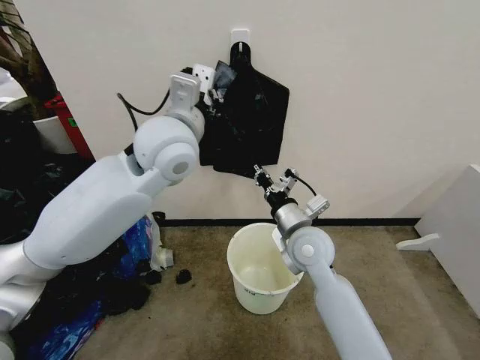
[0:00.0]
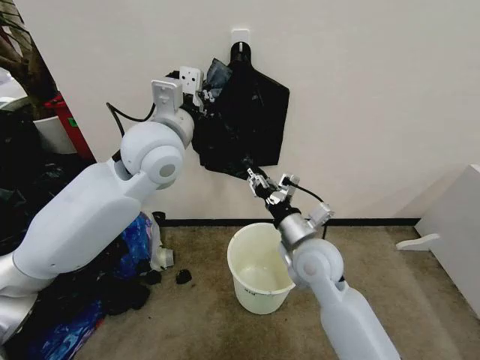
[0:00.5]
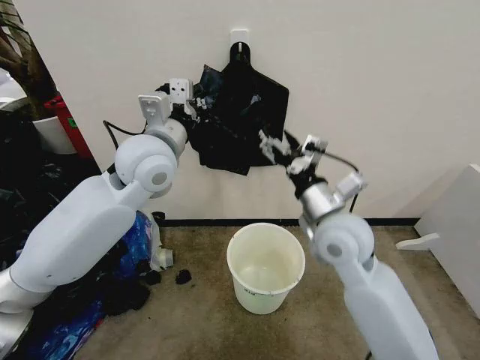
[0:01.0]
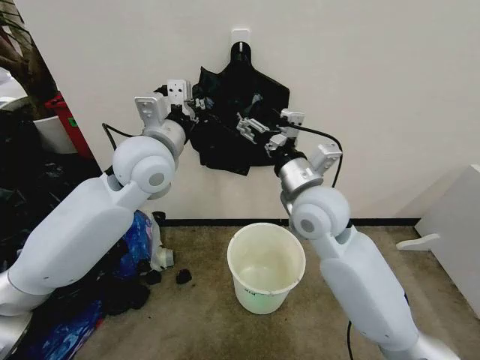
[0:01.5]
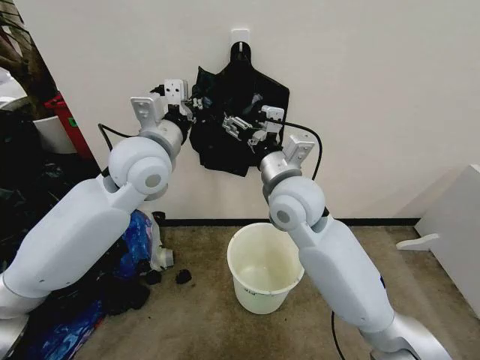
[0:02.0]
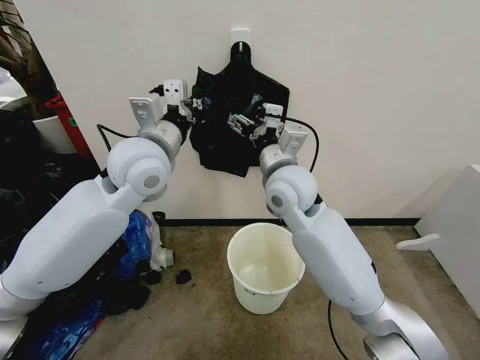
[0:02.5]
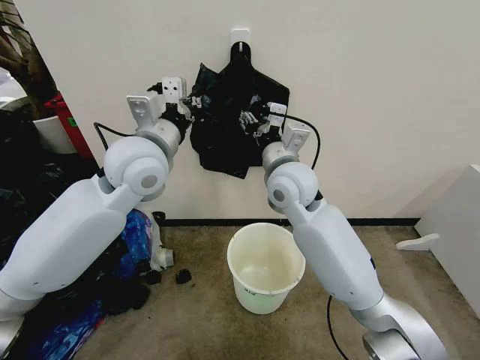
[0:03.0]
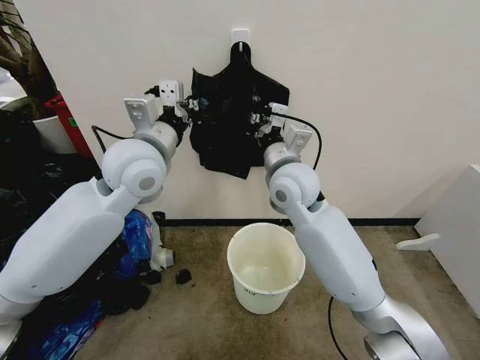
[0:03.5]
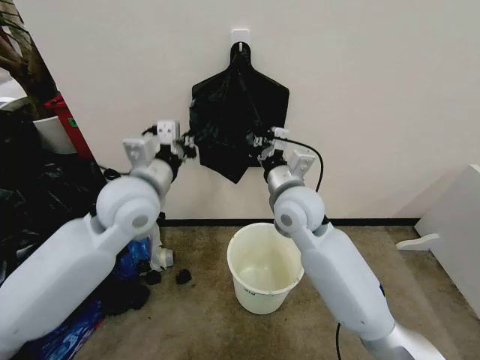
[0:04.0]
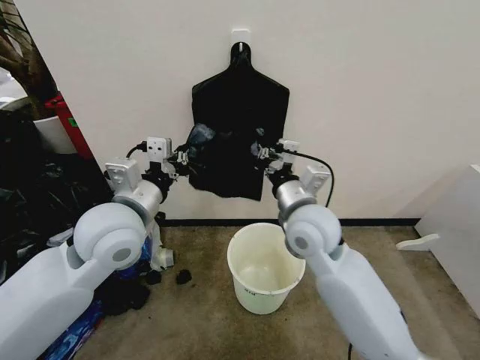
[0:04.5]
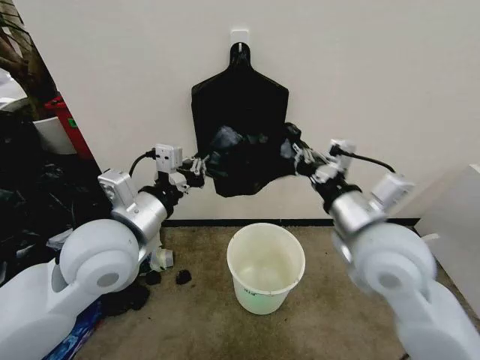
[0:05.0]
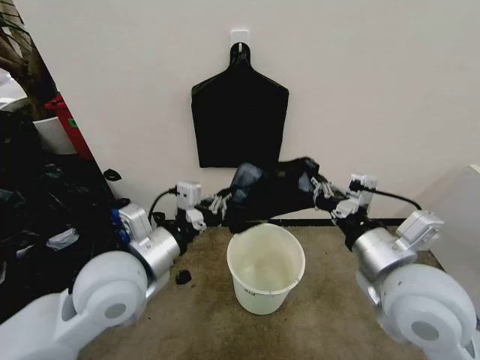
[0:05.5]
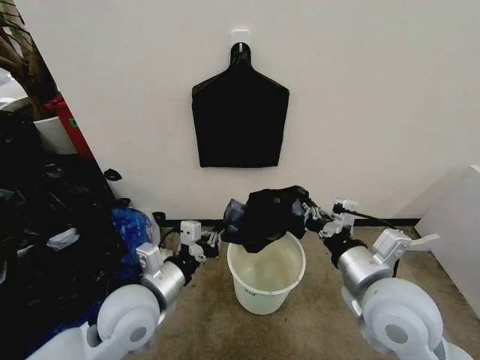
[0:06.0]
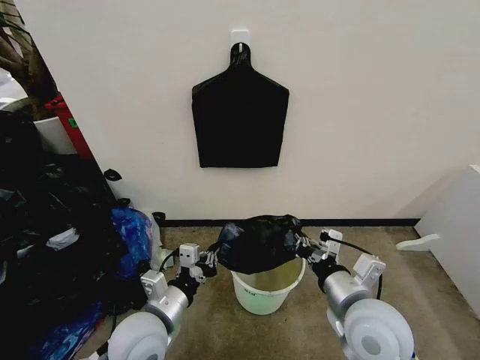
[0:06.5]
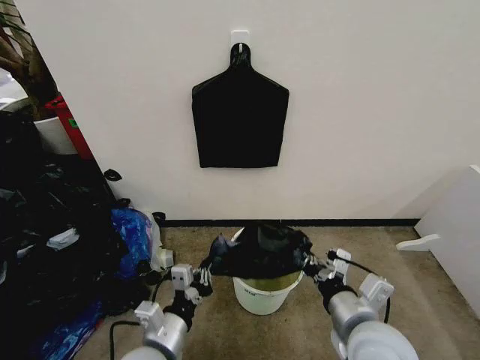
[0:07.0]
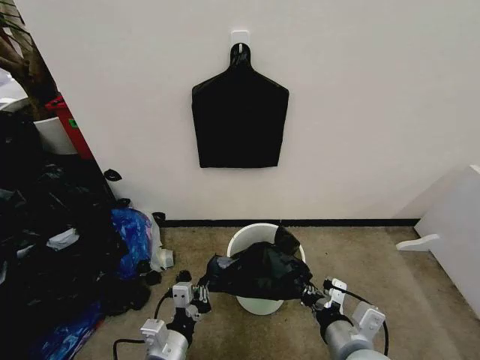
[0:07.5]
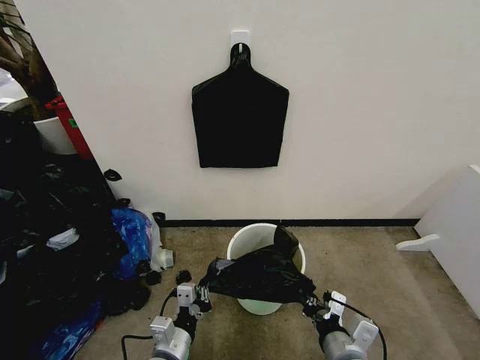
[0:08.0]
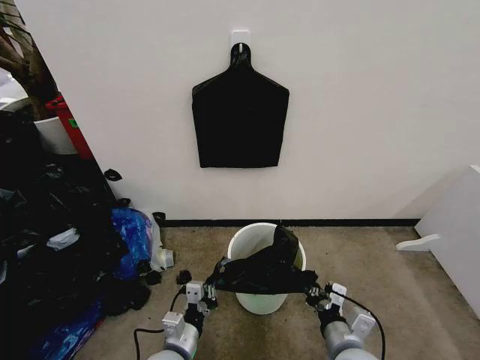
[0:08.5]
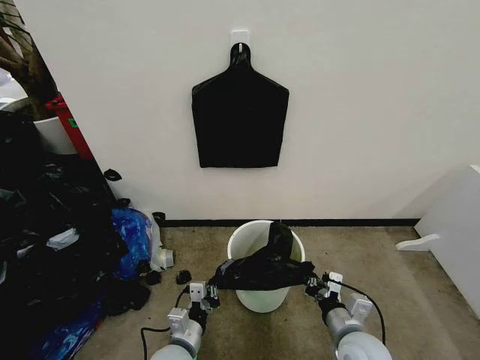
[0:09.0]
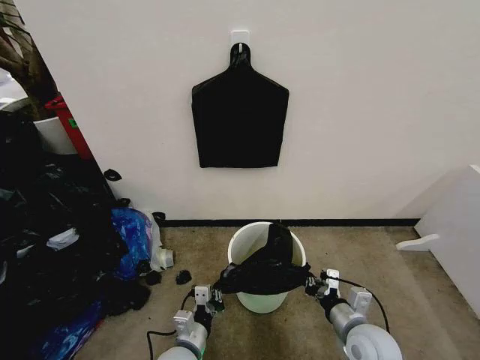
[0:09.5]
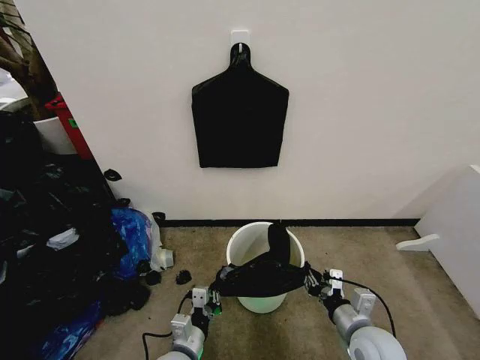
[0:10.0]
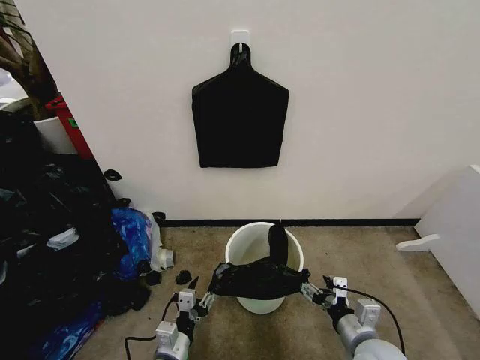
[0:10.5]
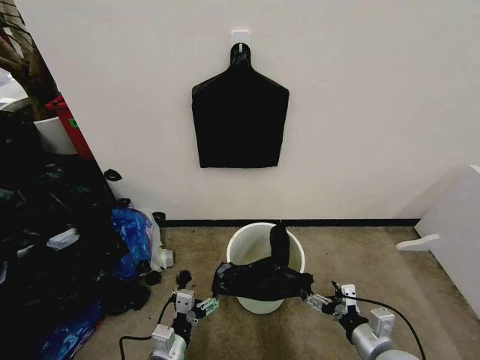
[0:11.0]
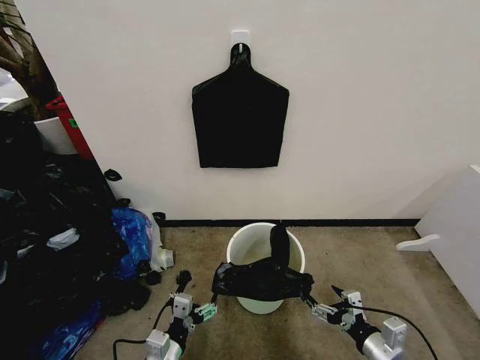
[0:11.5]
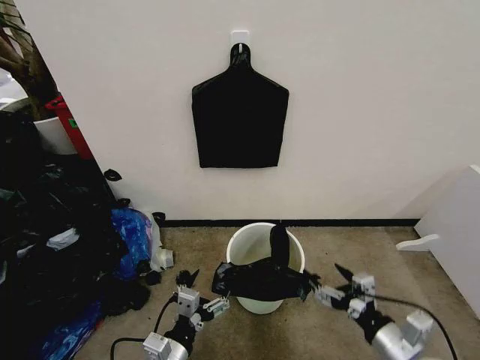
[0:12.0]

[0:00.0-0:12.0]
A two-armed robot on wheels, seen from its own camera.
Task of the whole recording: Place the garbage bag over the trash bin.
0:00.0 to 0:02.0: The left gripper moves to the left, about 5 cm; the right gripper moves upward, roughly 10 cm, and opens its fingers.
0:02.0 to 0:04.0: The right gripper closes its fingers, while the left gripper shifts by roughly 5 cm.
0:04.0 to 0:06.0: The left gripper shifts roughly 20 cm downward and backward, while the right gripper is displaced backward and to the right by approximately 20 cm.
0:06.0 to 0:08.0: Both grippers move downward and backward, about 15 cm.
0:08.0 to 0:10.0: The right gripper heads to the right and forward, covering approximately 10 cm. Meanwhile the left gripper heads downward, covering roughly 5 cm.
0:10.0 to 0:12.0: The left gripper moves upward and backward, some 10 cm, and opens; the right gripper moves backward and upward, about 10 cm, and opens.

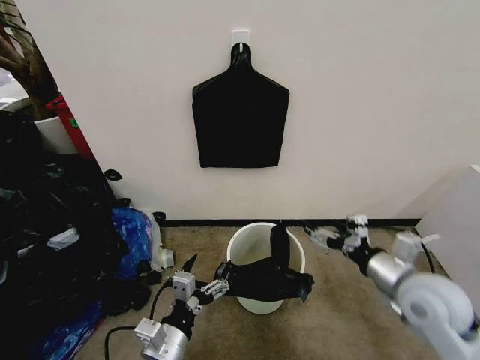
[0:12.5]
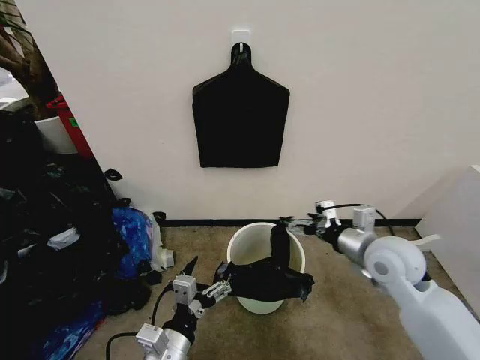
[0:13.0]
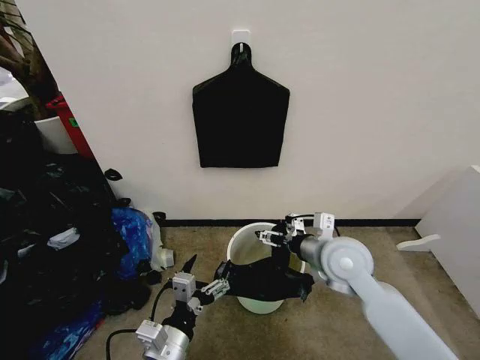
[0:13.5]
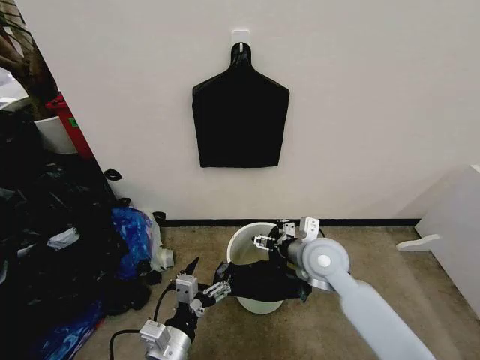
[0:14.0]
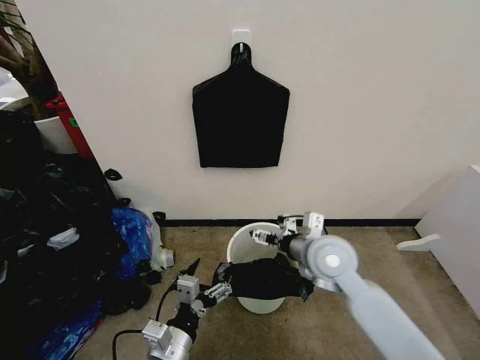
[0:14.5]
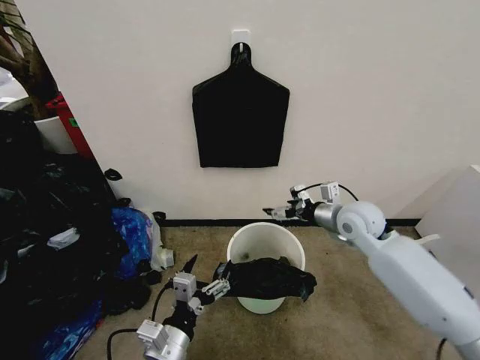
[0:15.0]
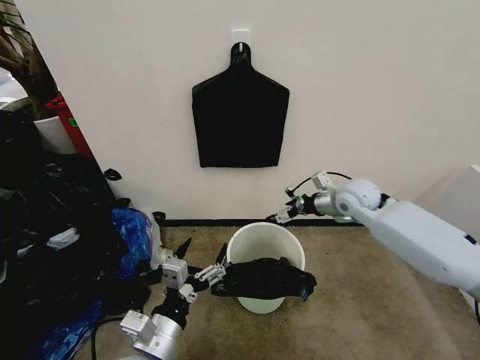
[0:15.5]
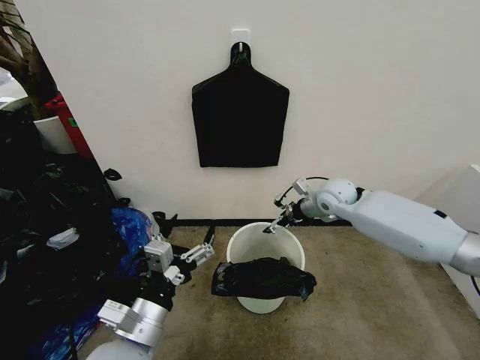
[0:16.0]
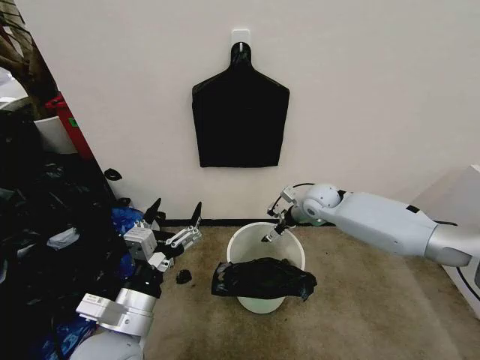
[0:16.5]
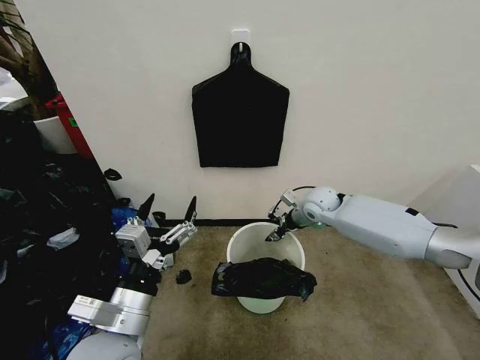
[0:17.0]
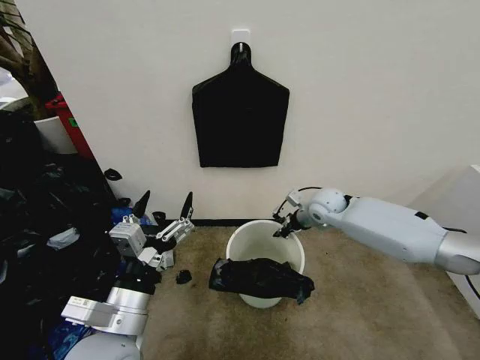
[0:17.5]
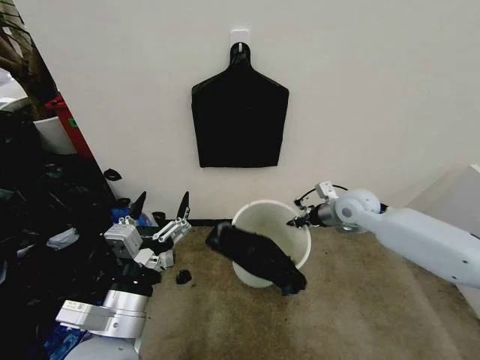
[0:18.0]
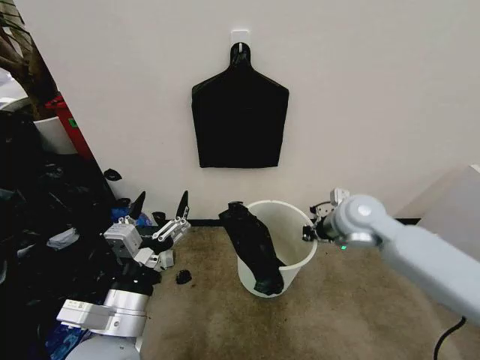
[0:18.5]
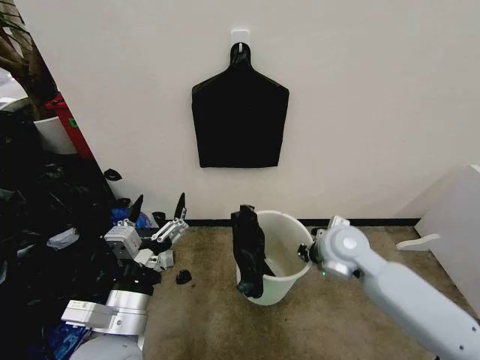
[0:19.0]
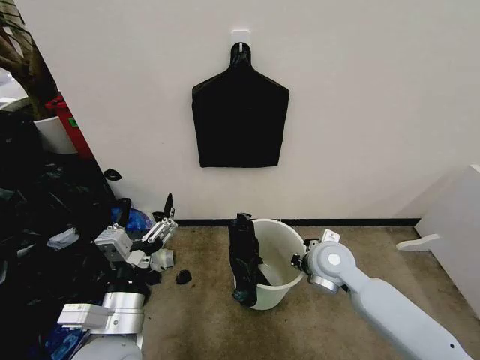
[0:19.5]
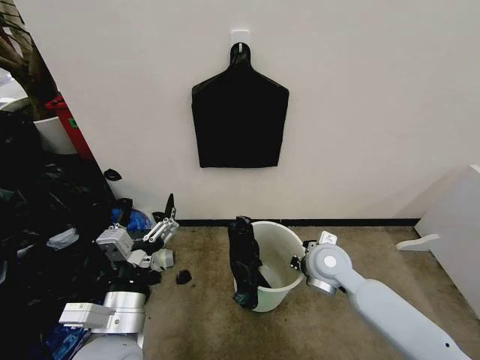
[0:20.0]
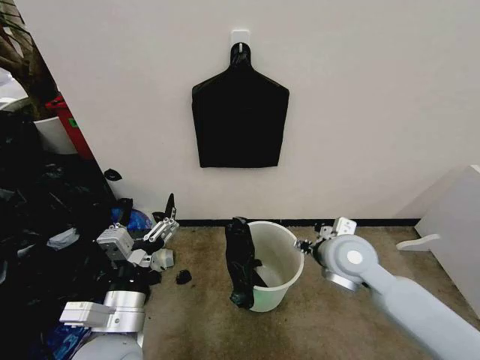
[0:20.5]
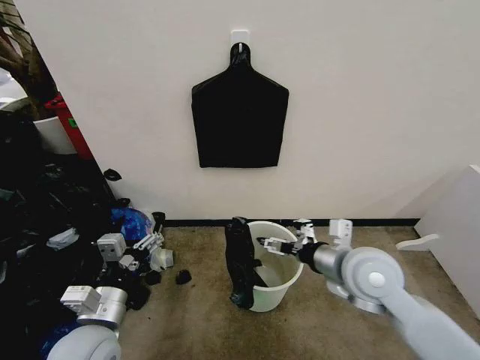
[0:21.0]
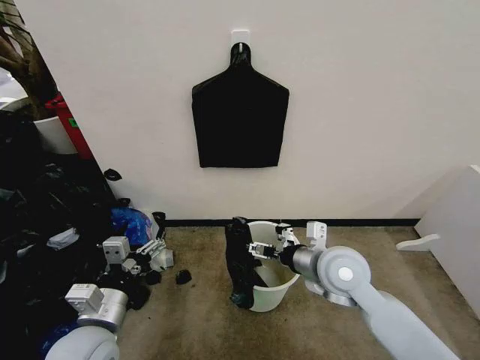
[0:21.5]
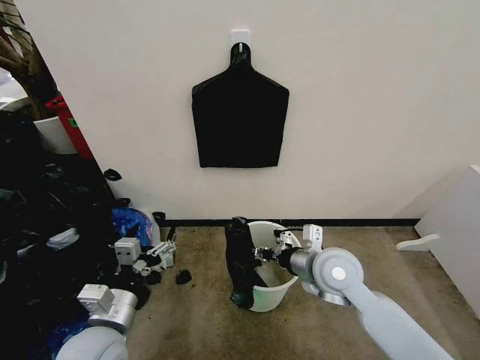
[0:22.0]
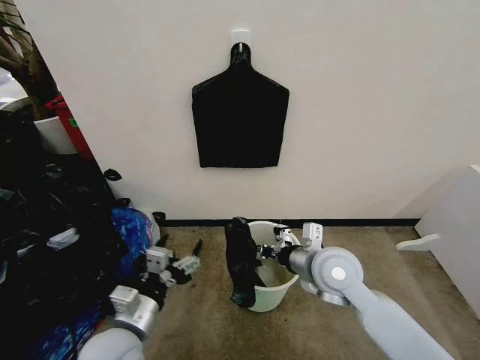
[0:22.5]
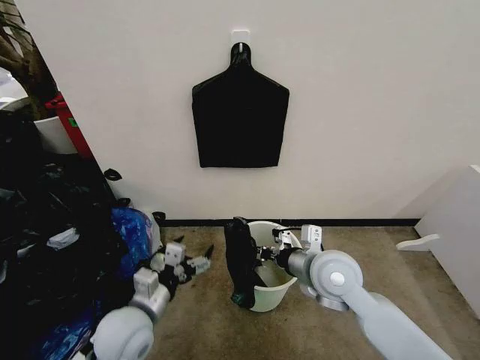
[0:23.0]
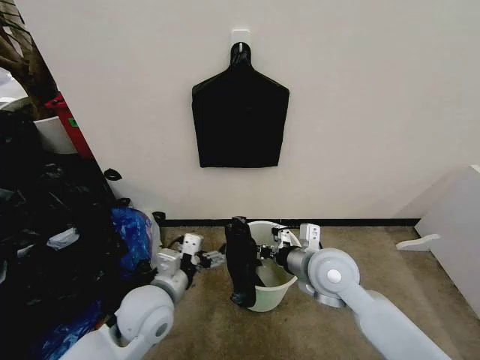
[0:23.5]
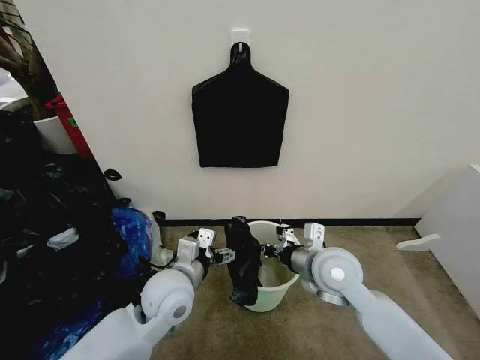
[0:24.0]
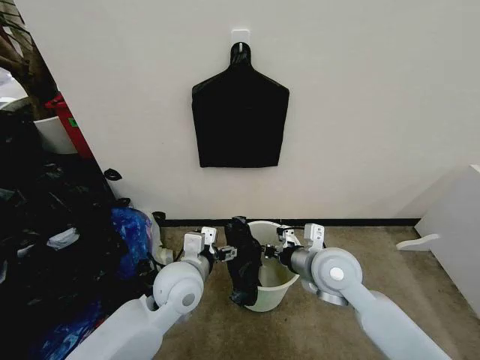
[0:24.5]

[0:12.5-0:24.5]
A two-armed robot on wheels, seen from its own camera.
Task of the whole recording: Place the garbage bag over the trash bin.
0:12.5 to 0:14.5: The right gripper moves to the left and forward, about 15 cm.
0:14.5 to 0:16.5: The right gripper goes some 20 cm forward. The left gripper heads upward, covering roughly 10 cm.
0:16.5 to 0:18.5: The right gripper goes some 15 cm backward and upward, and closes up.
0:18.5 to 0:20.5: The right gripper heads backward, covering some 10 cm, and opens its fingers.
0:20.5 to 0:22.5: The left gripper travels downward by roughly 5 cm, while the right gripper closes.
0:22.5 to 0:24.5: The left gripper moves forward and to the right, roughly 15 cm.

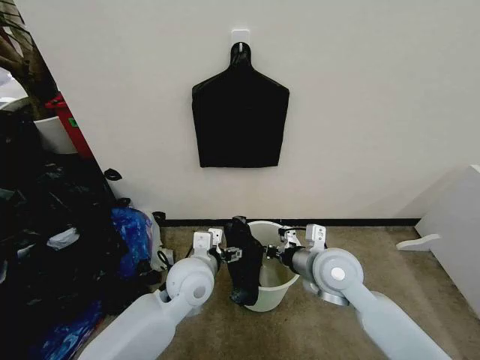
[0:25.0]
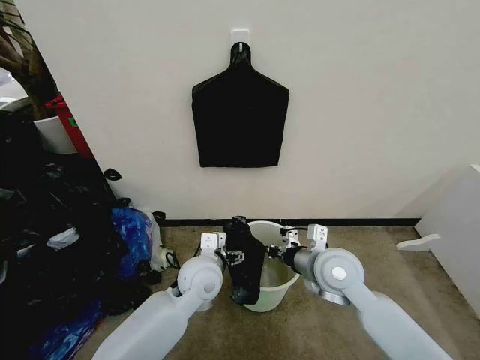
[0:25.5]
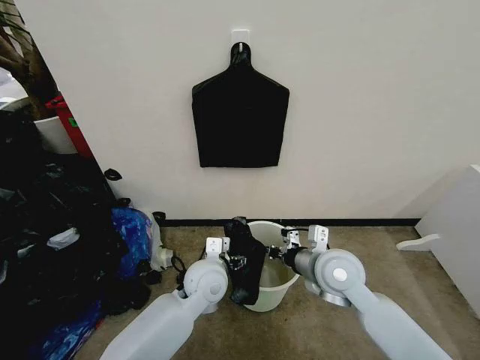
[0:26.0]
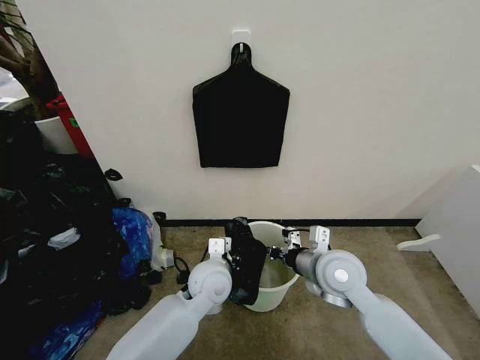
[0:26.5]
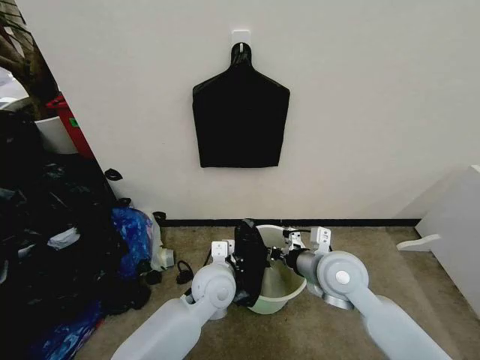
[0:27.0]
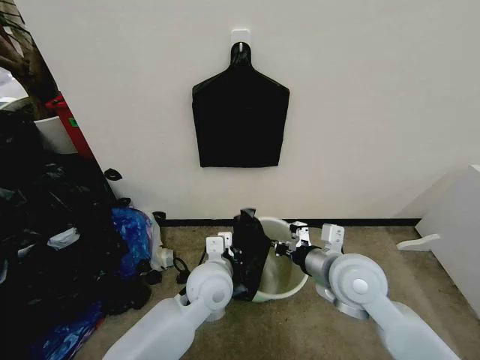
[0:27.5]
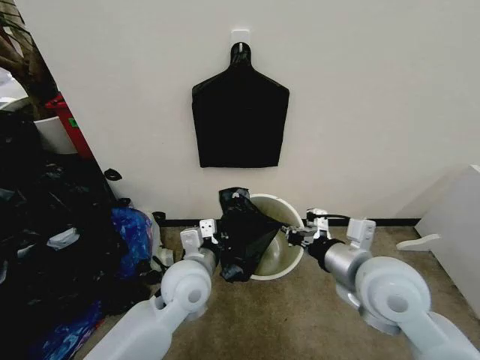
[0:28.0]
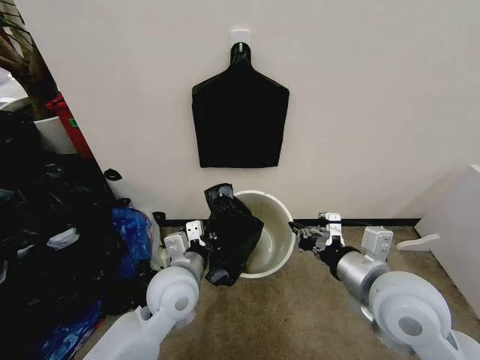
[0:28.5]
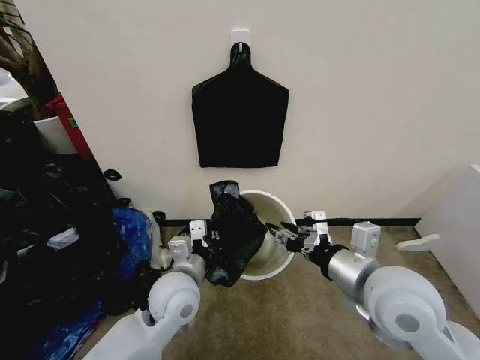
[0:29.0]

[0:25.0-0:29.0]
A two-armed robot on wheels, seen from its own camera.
Task of the whole recording: Place the garbage bag over the trash bin.
0:25.0 to 0:27.0: The left gripper ends up some 5 cm from where it was, and closes.
0:27.0 to 0:29.0: The right gripper moves upward and backward, approximately 15 cm, and opens up, while the left gripper shifts roughly 10 cm to the left and upward.
